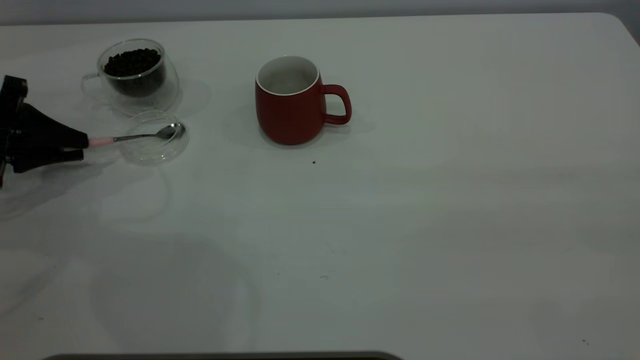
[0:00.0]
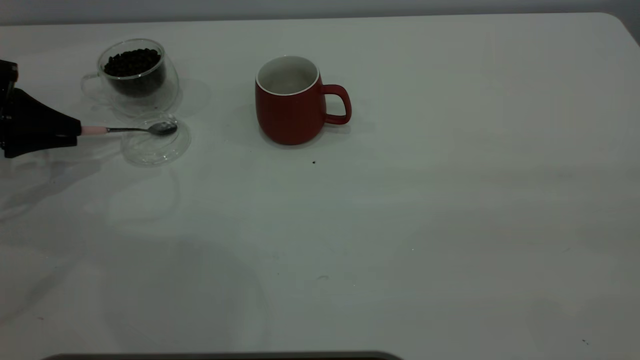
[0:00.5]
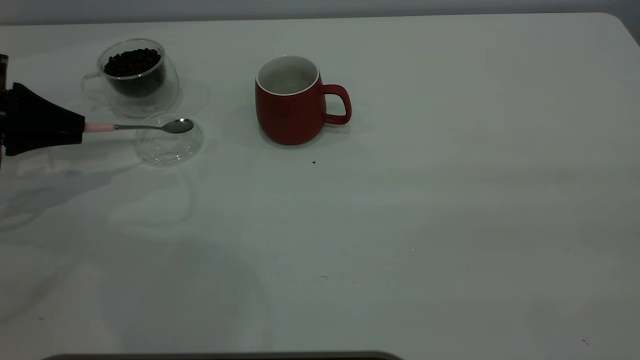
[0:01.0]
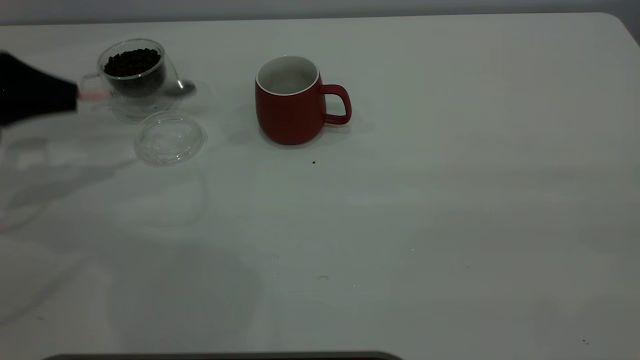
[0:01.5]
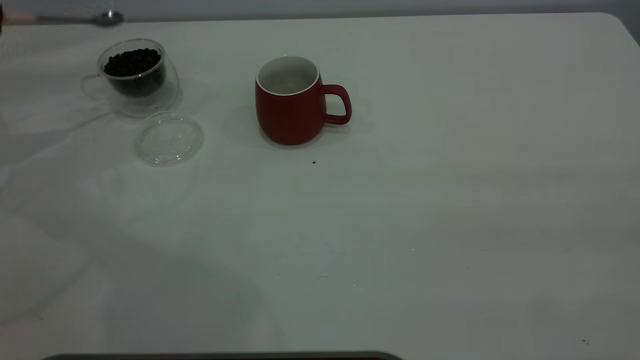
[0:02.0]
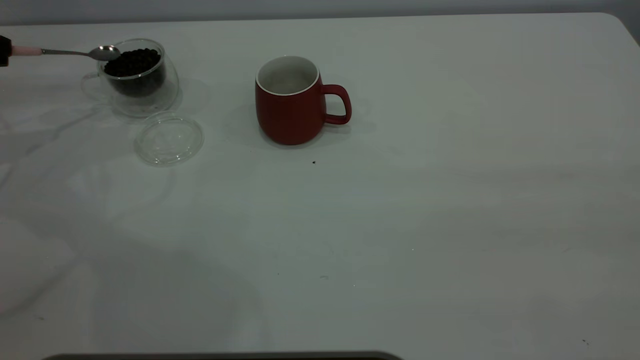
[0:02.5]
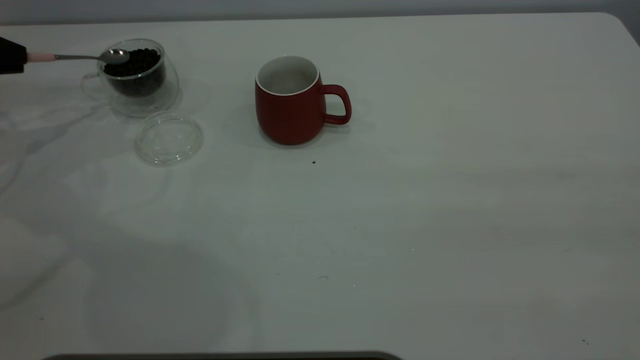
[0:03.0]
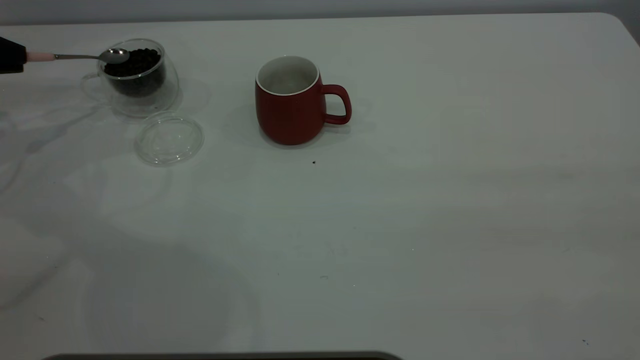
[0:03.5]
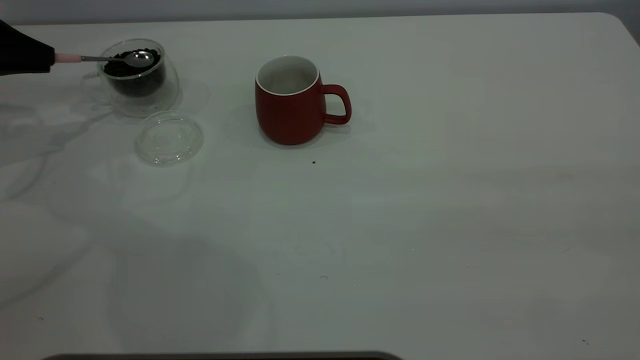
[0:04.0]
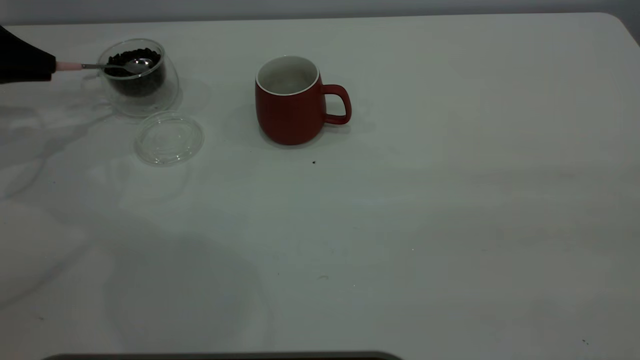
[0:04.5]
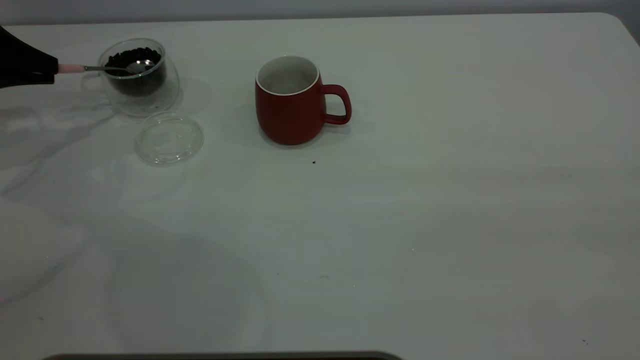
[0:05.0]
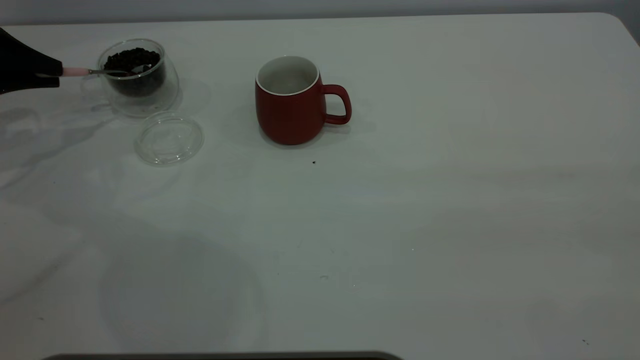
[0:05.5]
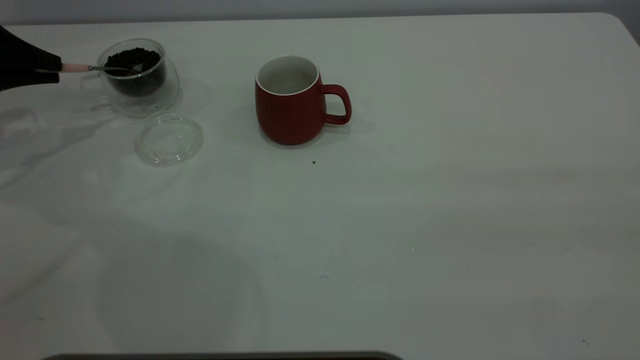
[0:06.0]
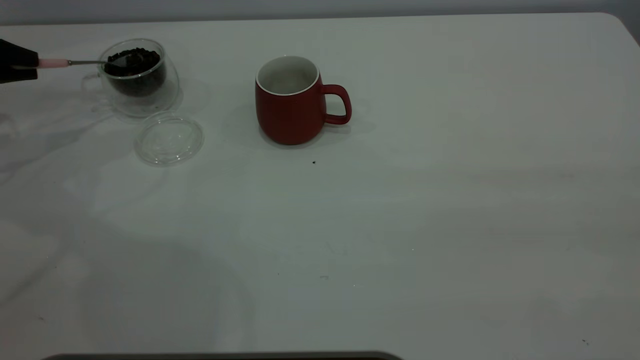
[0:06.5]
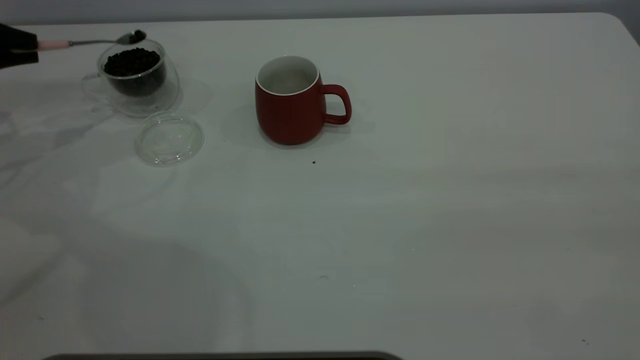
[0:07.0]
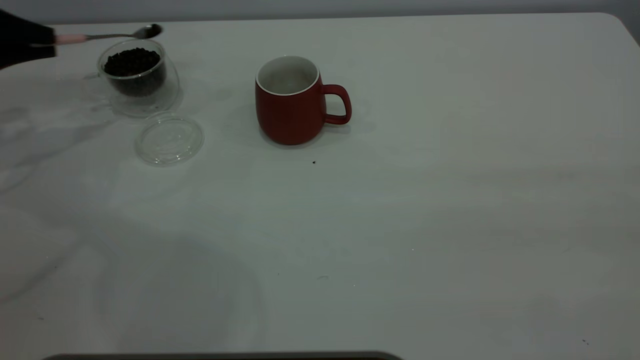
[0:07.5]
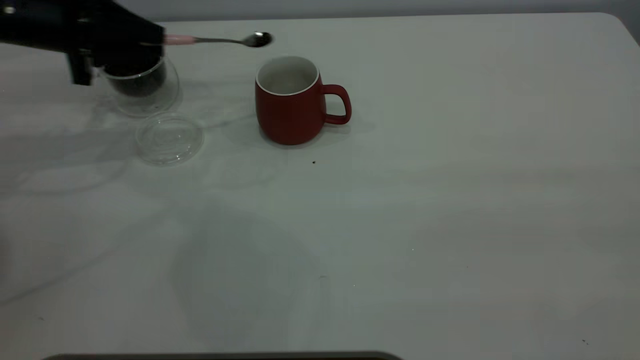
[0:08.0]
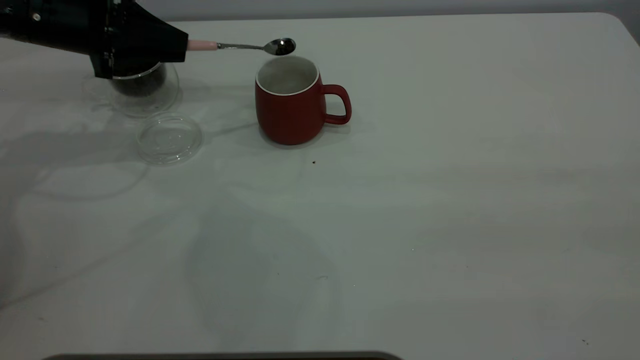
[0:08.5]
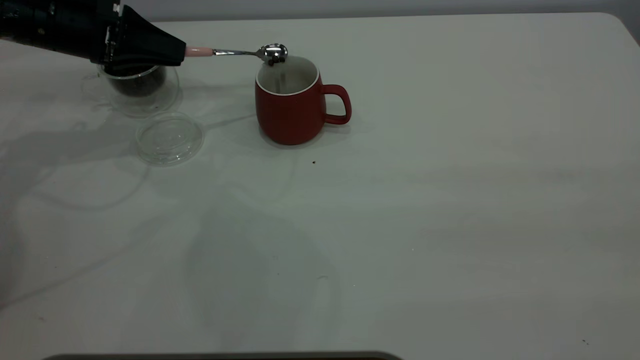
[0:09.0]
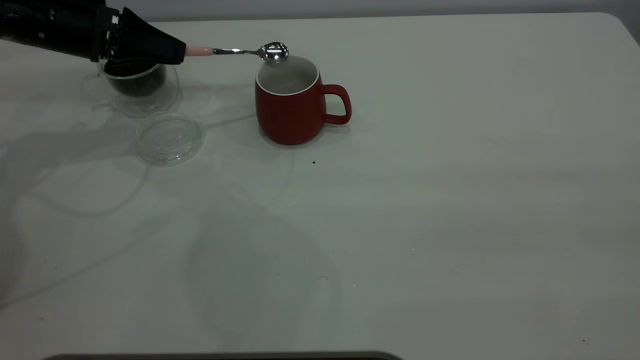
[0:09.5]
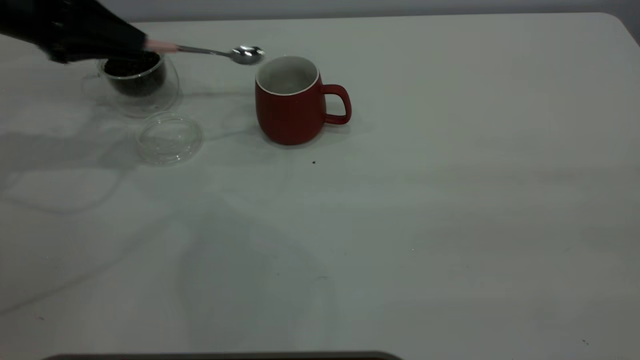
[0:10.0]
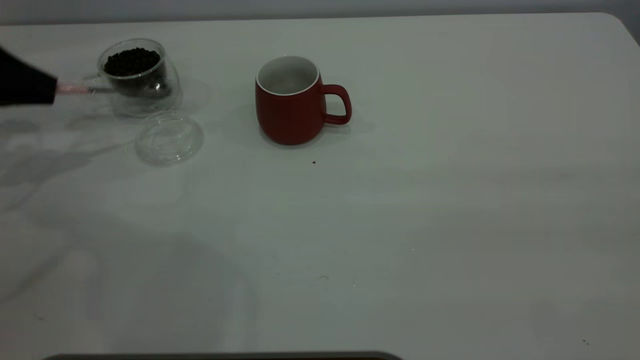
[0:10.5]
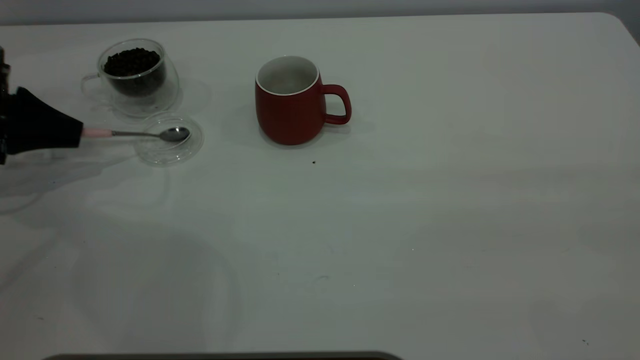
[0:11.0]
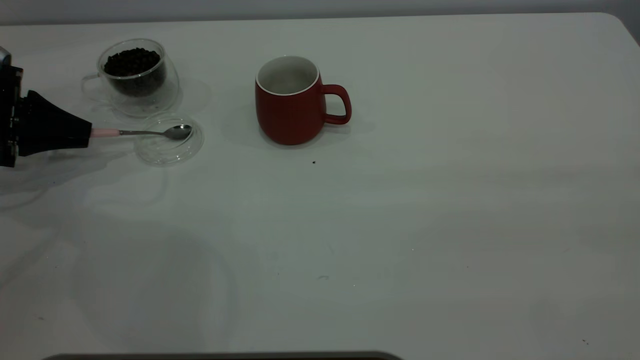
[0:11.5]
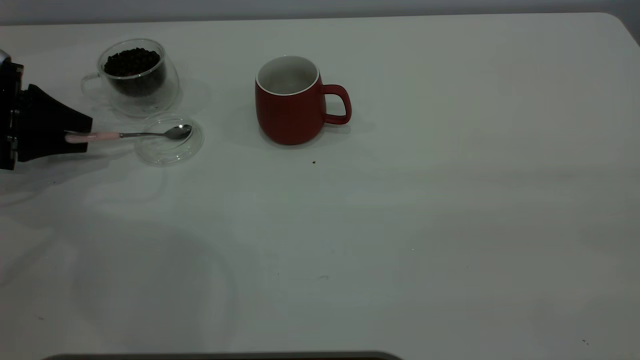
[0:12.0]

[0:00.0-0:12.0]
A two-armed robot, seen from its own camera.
Task of the whole recording: the right gripper place the red cup in the center of the table, the left gripper take the pink spoon from the cup lid and scoop out the coffee beans from the coffee cup and put them into the red cup, the left gripper put the spoon back into the cup lid.
Step, 0:02.0 to 0:09.5: Scoop a spoonful of beans into the cup.
0:00.0 to 0:02.0: The left gripper moves upward and to the left, some 15 cm.
0:02.0 to 0:04.0: The left gripper ends up some 5 cm from where it was.
0:06.0 to 0:08.0: The left gripper moves to the right, roughly 15 cm.
0:10.0 to 0:12.0: The left gripper goes roughly 15 cm downward and to the left, and opens up.

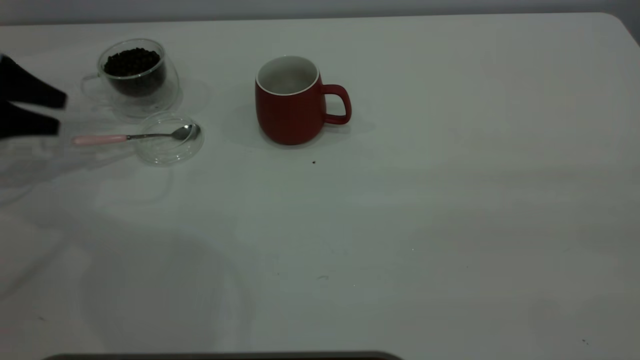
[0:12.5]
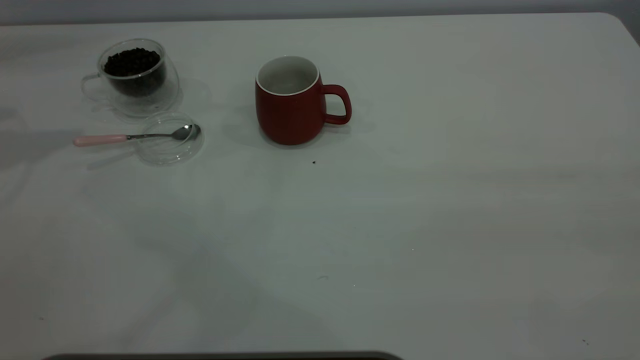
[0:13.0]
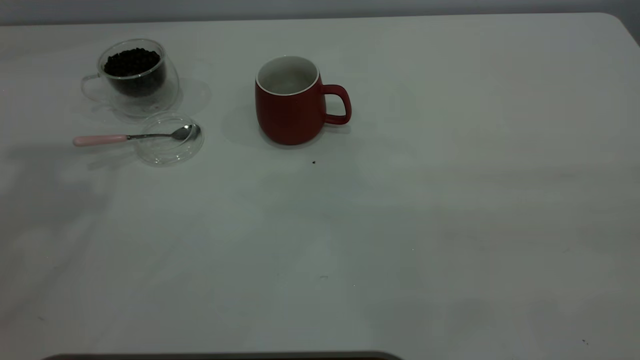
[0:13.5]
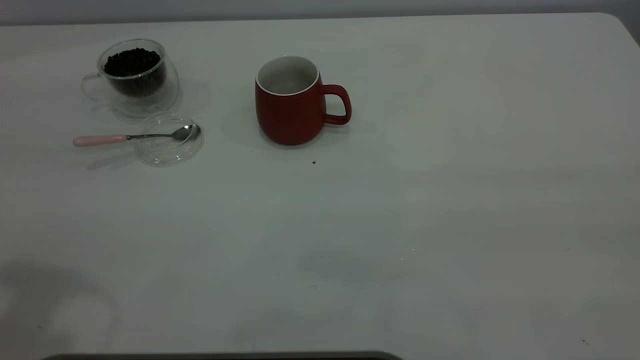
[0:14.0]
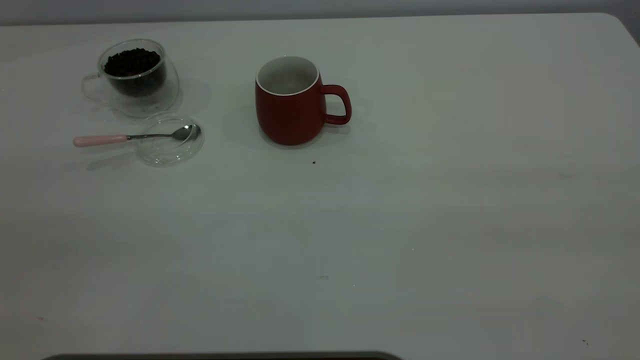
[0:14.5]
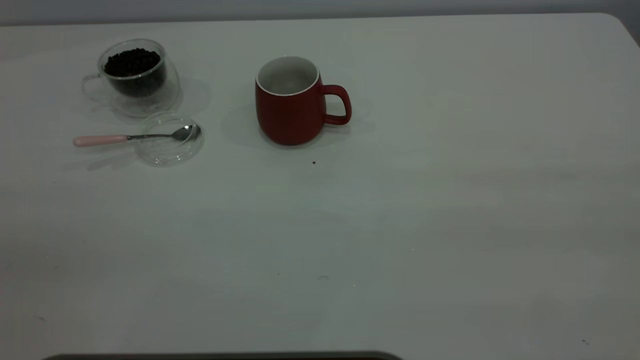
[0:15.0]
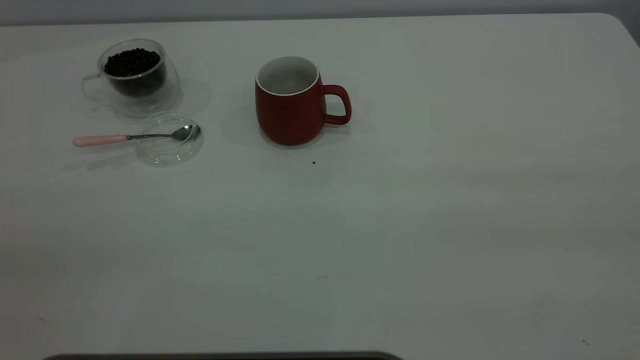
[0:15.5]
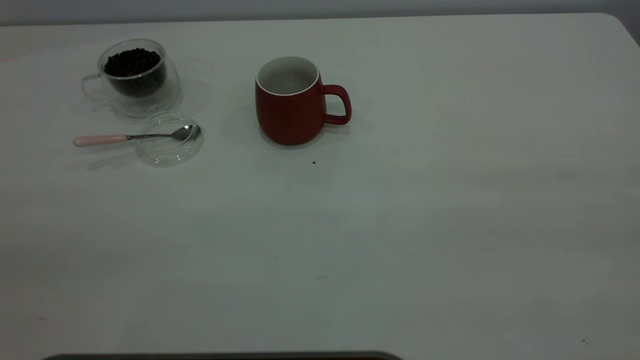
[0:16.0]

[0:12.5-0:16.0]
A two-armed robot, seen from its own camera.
Task of the whole recording: the right gripper place the red cup in the center of the table, the left gripper take the pink spoon from the cup lid and scoop out the coffee beans from the coffee cup and put them into the red cup, the left gripper put the spoon back into the cup lid.
0:12.5 to 0:14.5: The left gripper goes roughly 40 cm backward, upward and to the right.
